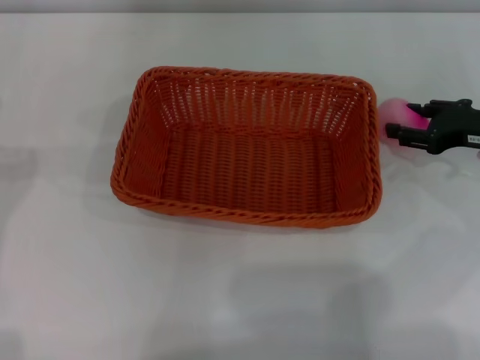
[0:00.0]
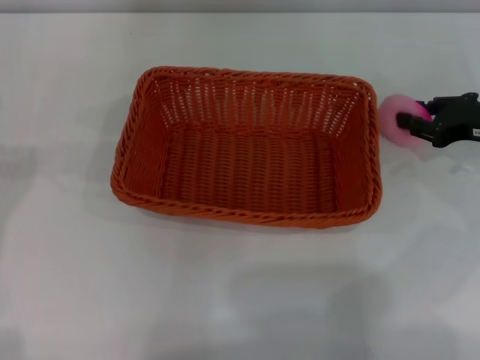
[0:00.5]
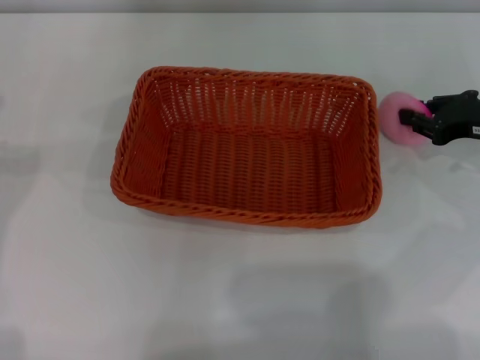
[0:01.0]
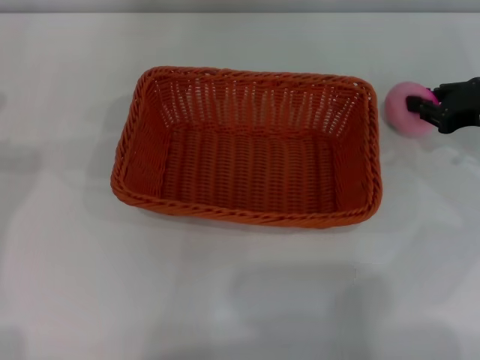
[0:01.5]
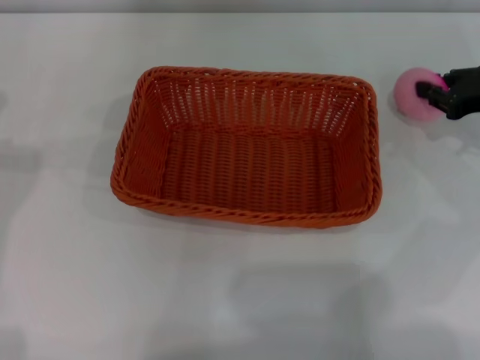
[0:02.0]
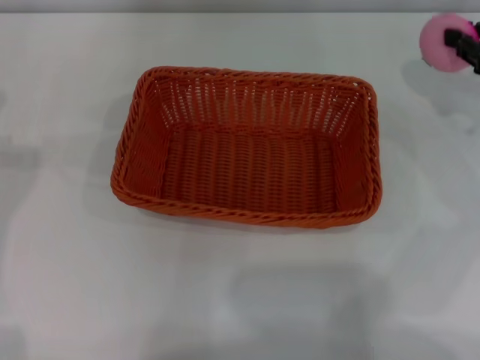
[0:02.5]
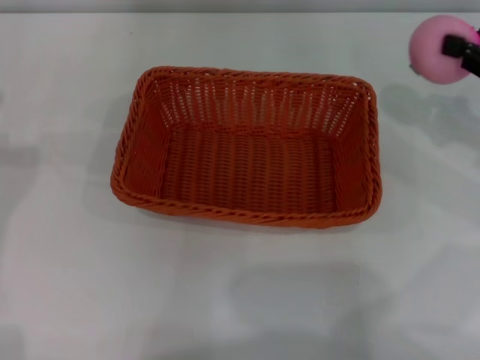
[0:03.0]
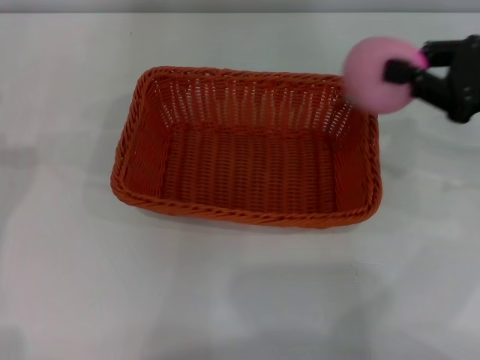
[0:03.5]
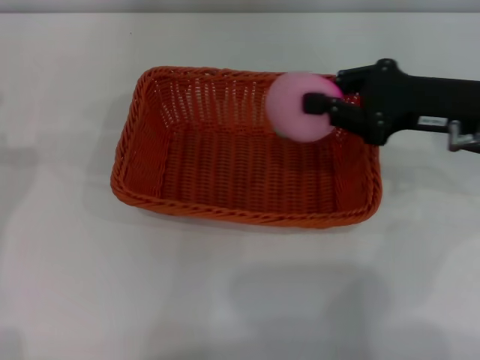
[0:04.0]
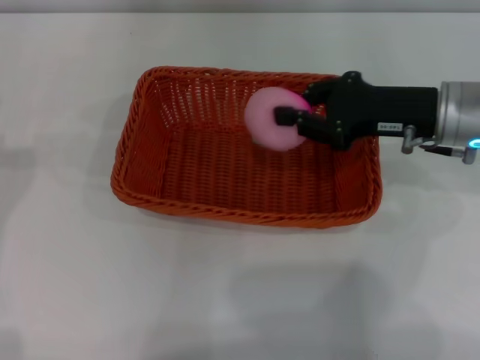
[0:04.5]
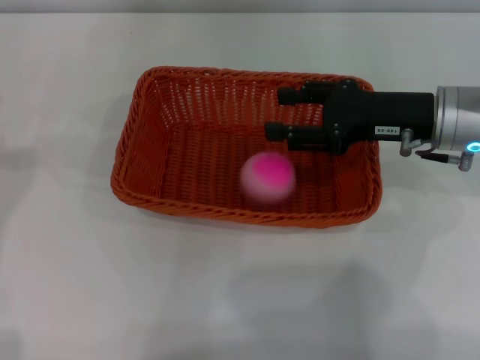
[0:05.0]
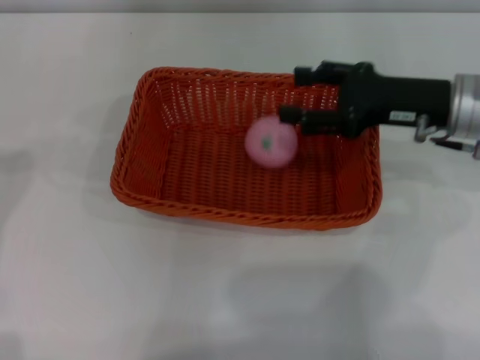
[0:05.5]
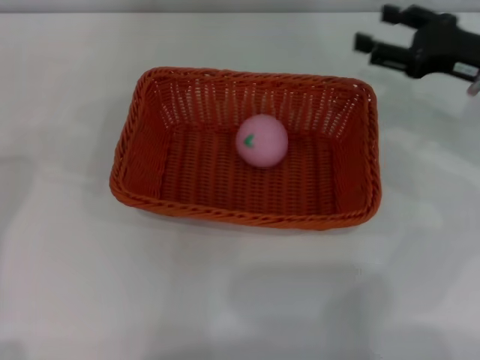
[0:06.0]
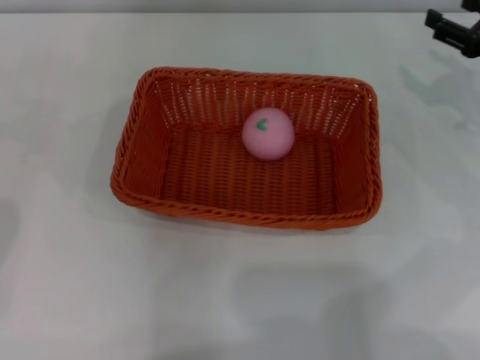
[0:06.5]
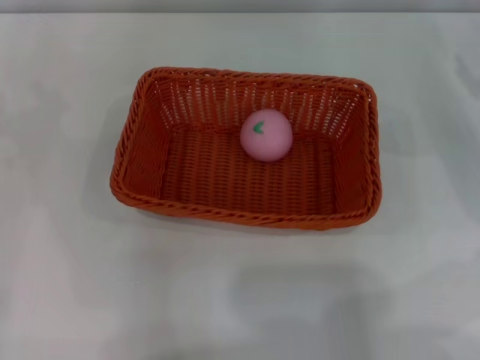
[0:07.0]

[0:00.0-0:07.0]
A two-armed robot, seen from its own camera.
Step, 0.0 to 2.5 s: Pick up the peach with the left gripper.
0.0 to 2.0 s: The right gripper closes its fingers.
2.0 to 3.5 s: The right gripper goes approximately 10 cm upward and backward.
3.5 to 5.0 s: The right gripper heads to the left, covering about 10 cm, and opens.
5.0 to 7.0 s: The right gripper moves to the right, some 15 cm, and opens. The left gripper moves downward, roughly 5 cm.

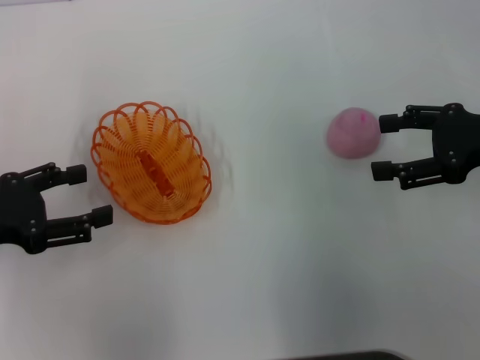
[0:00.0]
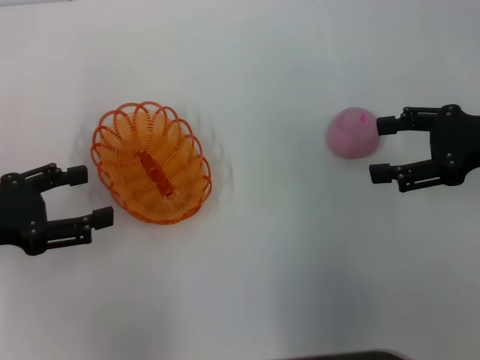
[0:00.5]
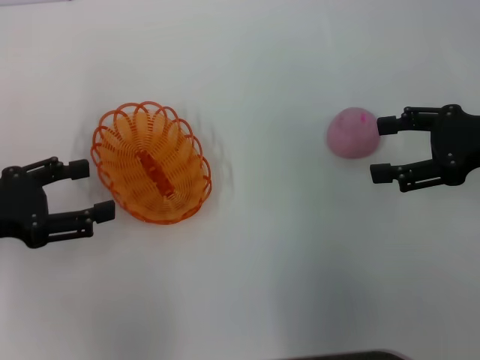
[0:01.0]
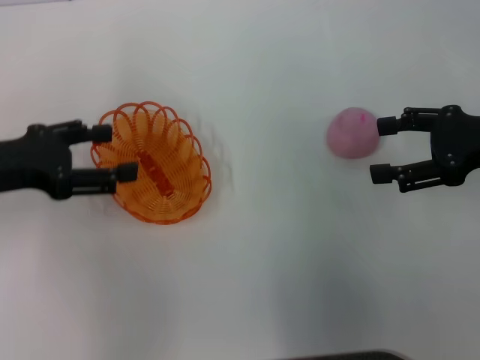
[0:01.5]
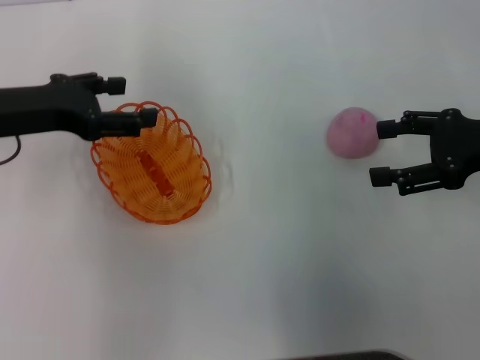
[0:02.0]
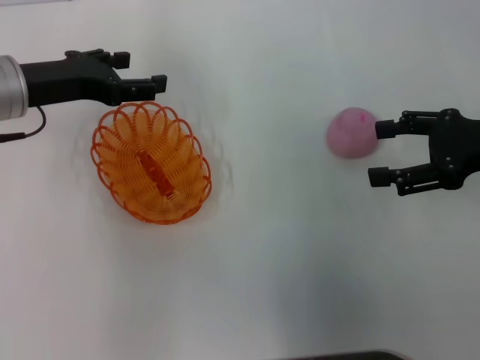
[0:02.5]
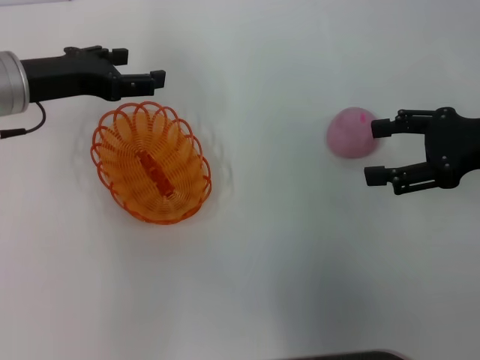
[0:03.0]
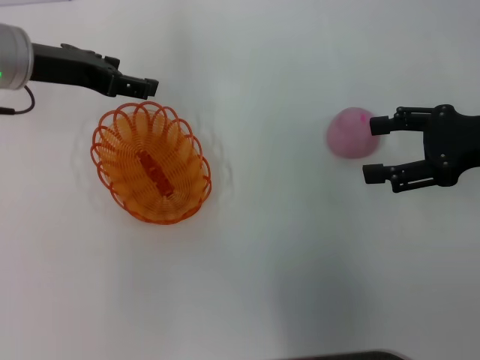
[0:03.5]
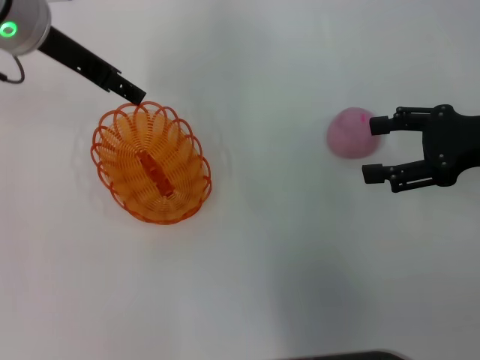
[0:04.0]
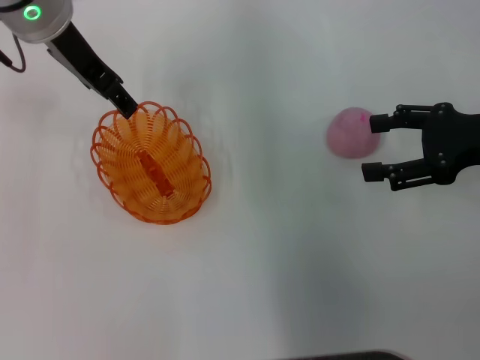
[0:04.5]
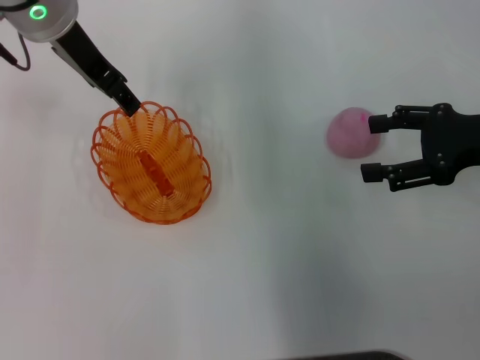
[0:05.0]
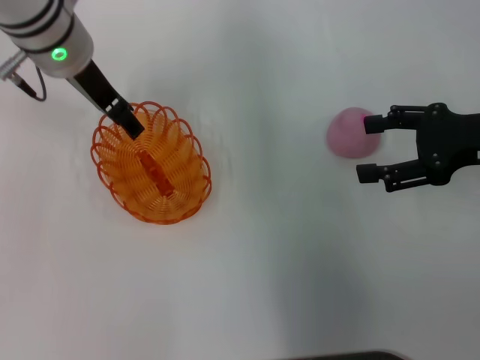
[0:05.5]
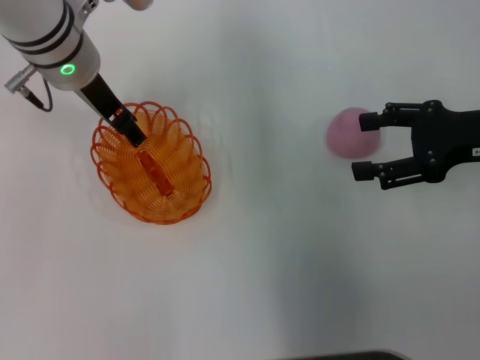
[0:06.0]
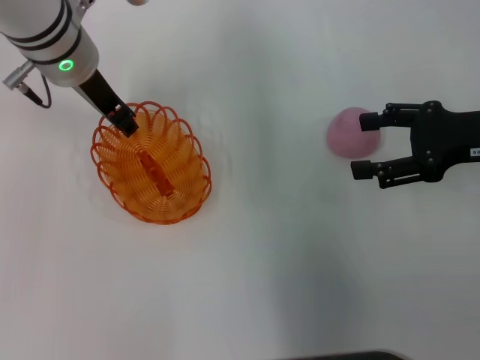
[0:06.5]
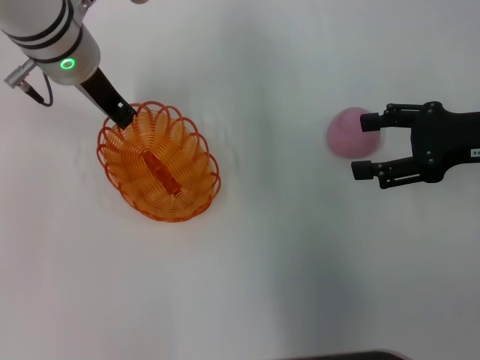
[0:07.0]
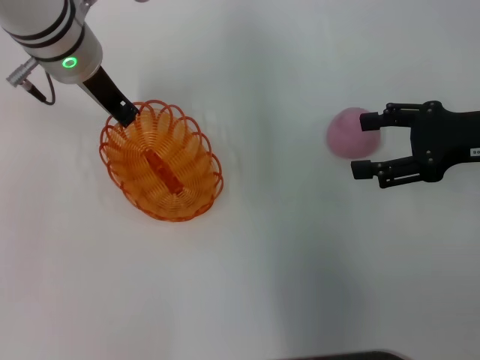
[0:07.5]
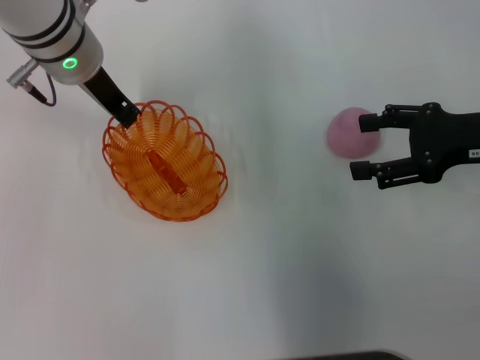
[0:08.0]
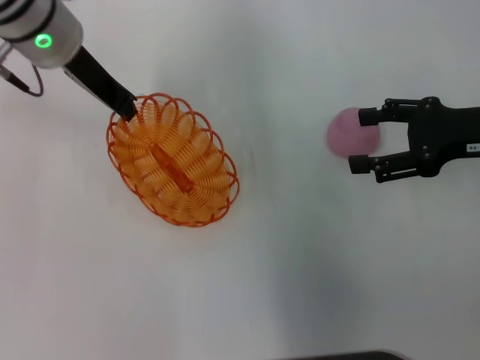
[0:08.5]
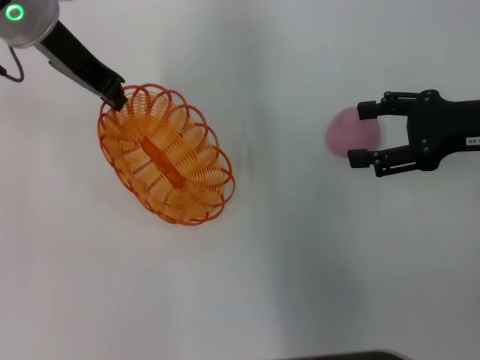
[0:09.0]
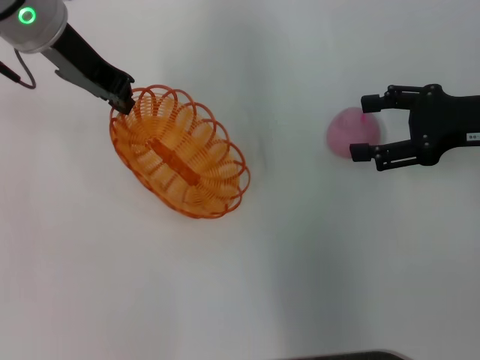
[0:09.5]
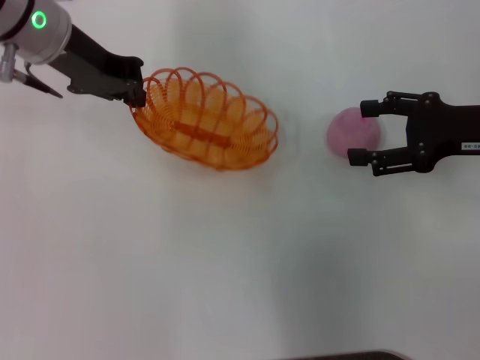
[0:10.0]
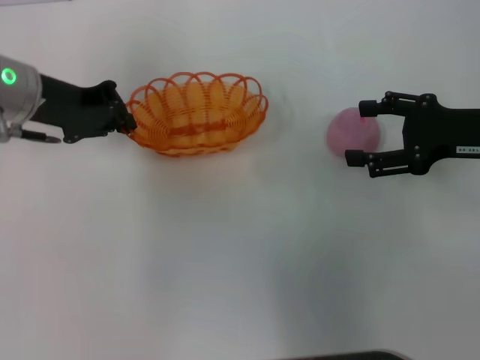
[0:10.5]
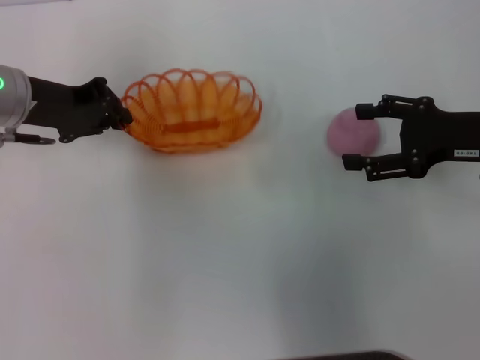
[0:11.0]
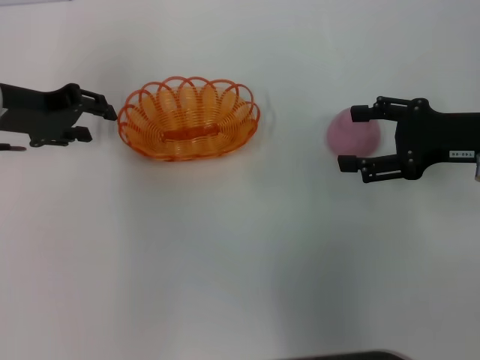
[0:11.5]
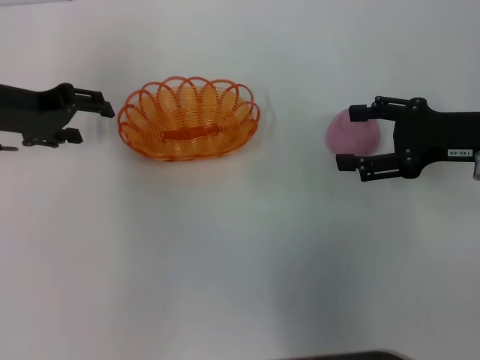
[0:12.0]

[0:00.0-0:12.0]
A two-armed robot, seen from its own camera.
Step, 0.0 to 9.0 s: Pick up the basket with the left gripper.
0.0 to 2.0 s: The left gripper moves forward and to the right, some 10 cm.
2.0 to 4.0 s: The left gripper shifts some 10 cm forward, to the right and upward.
4.0 to 6.0 s: The left gripper ends up about 5 cm from where it was.
6.0 to 8.0 s: The left gripper closes its fingers.
10.0 to 12.0 s: The left gripper is displaced to the left and downward by approximately 10 cm, and opens up.

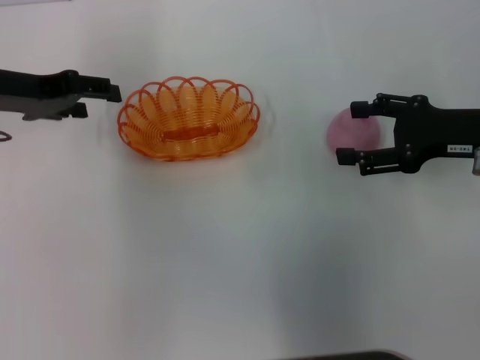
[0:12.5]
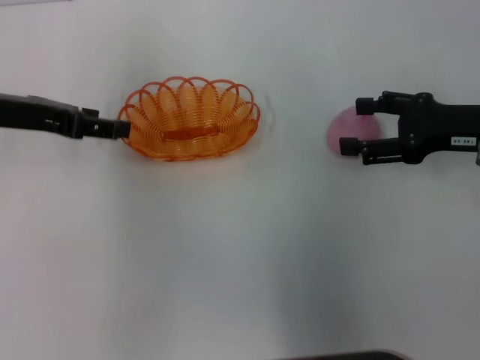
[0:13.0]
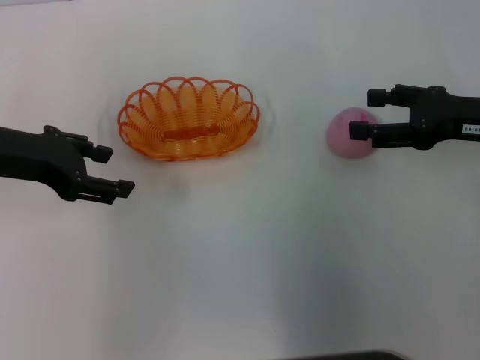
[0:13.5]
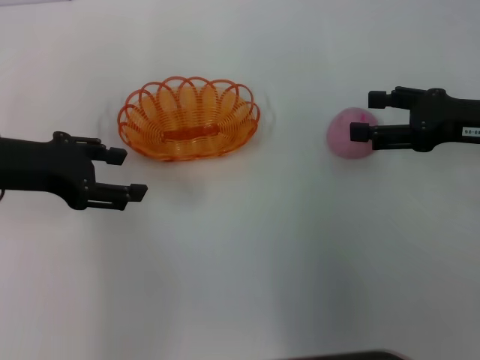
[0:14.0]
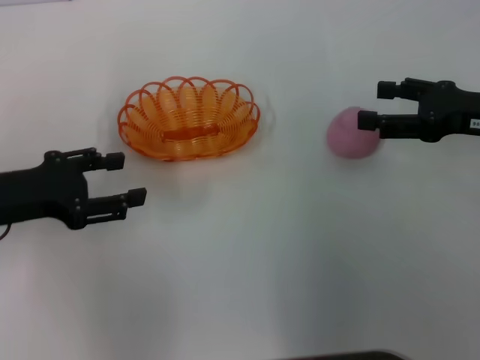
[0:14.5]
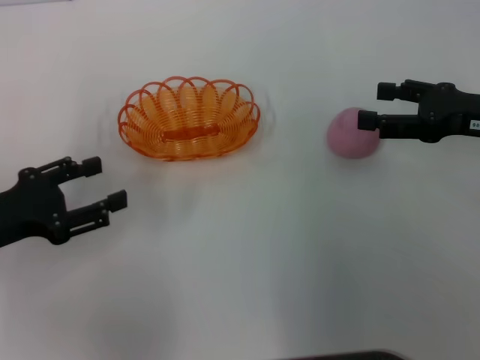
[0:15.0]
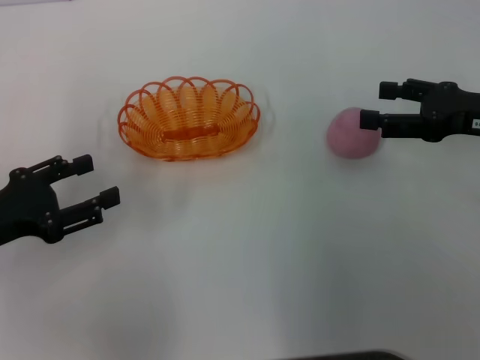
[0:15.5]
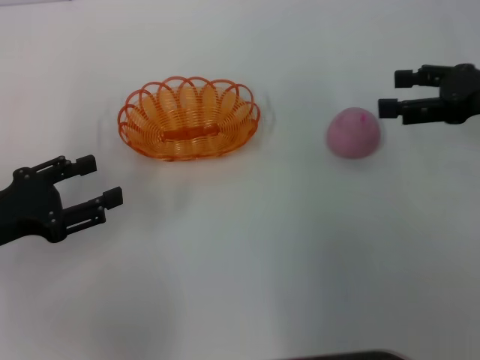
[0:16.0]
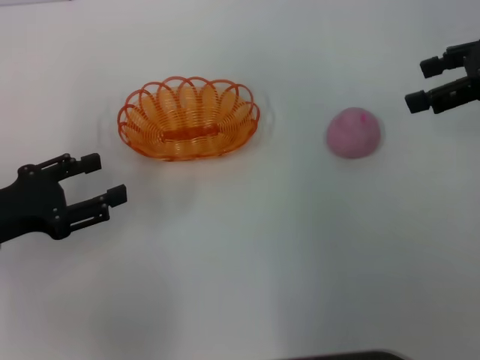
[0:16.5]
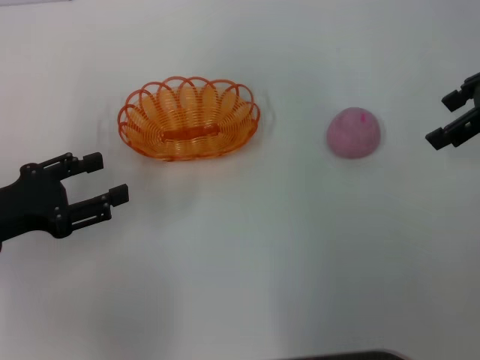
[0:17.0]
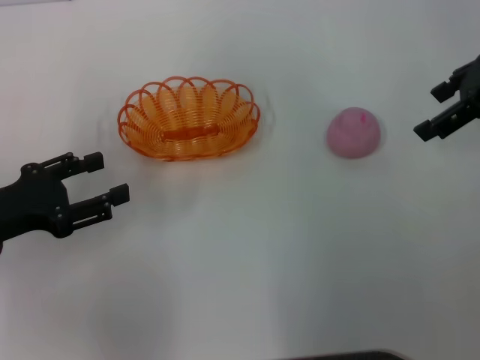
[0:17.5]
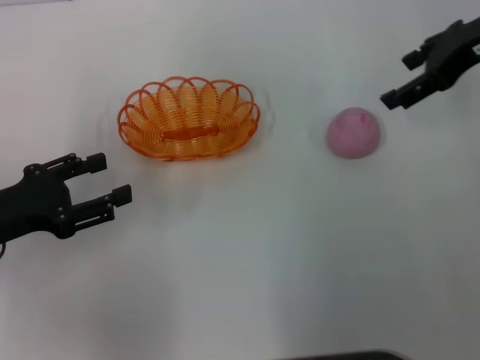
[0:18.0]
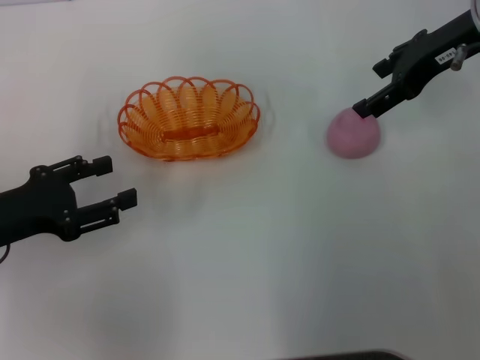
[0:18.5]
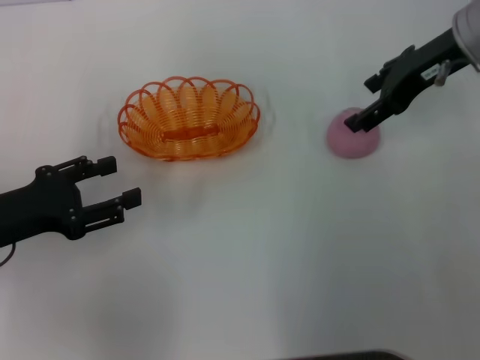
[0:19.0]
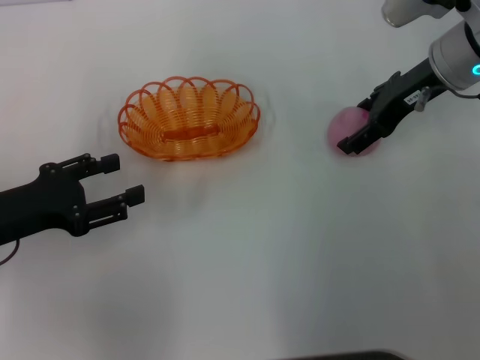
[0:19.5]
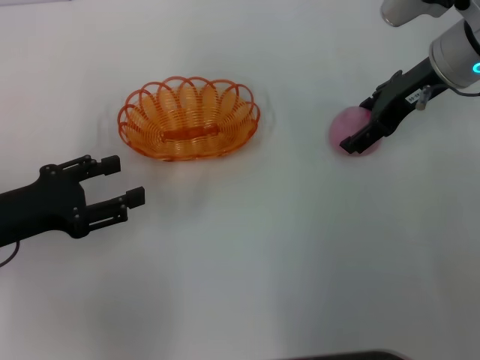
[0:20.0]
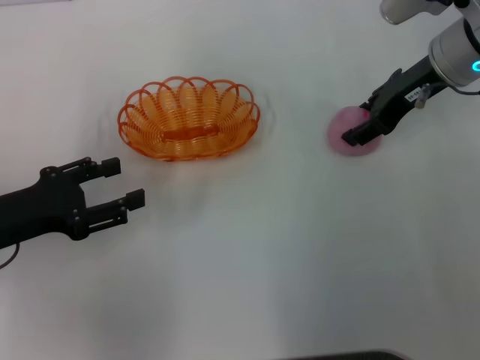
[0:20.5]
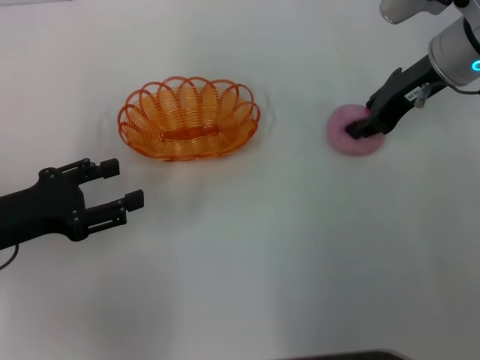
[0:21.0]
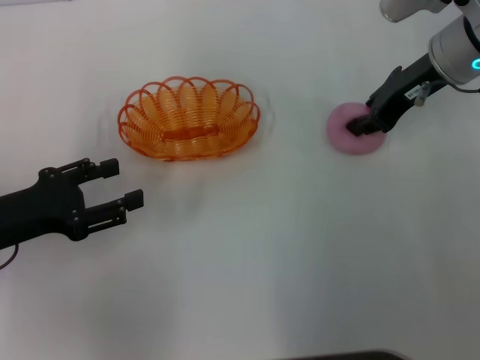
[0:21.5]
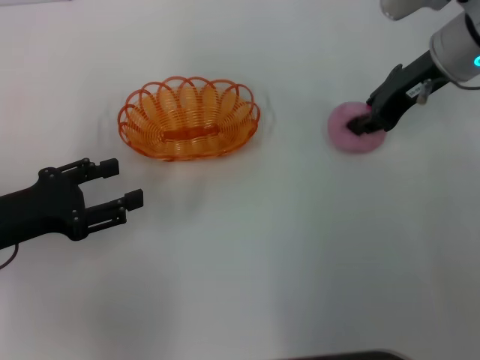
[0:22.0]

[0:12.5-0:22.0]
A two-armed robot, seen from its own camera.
12.5 to 14.5 s: The left gripper shifts some 10 cm backward and downward.
14.5 to 16.5 s: The right gripper heads upward, covering some 10 cm.
16.5 to 18.0 s: The right gripper shifts approximately 5 cm to the left.
18.0 to 20.0 s: The right gripper heads downward, covering some 5 cm.
20.0 to 22.0 s: The right gripper closes up.
